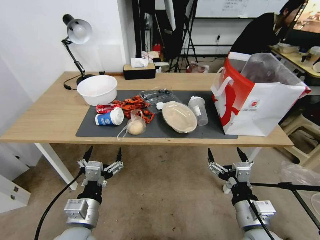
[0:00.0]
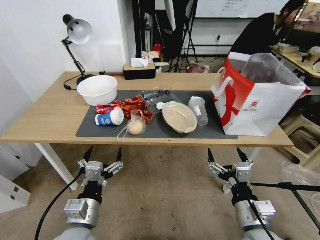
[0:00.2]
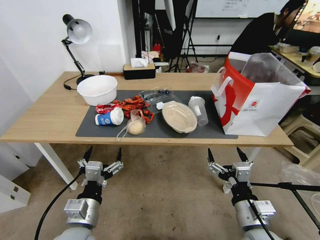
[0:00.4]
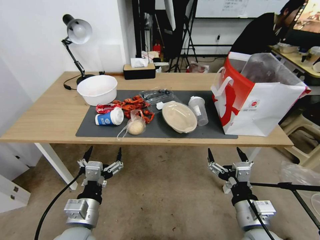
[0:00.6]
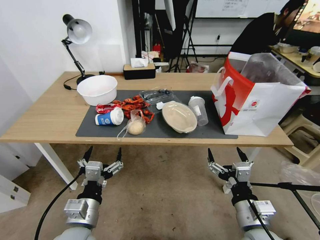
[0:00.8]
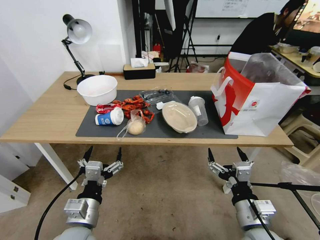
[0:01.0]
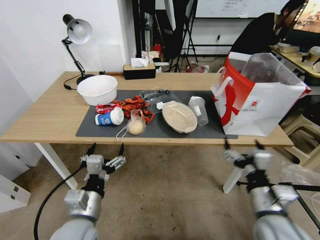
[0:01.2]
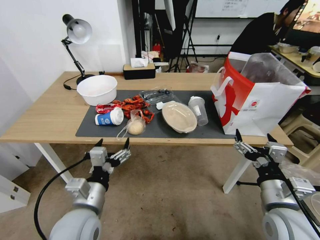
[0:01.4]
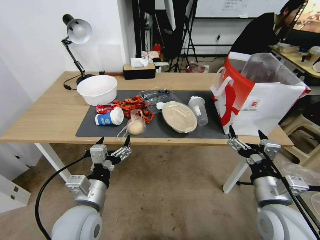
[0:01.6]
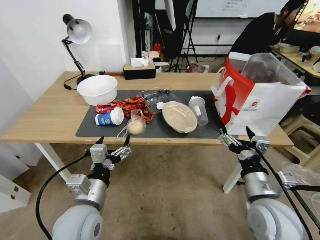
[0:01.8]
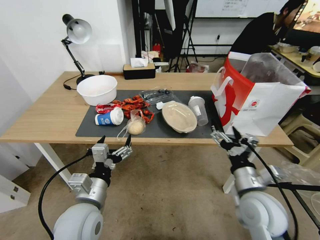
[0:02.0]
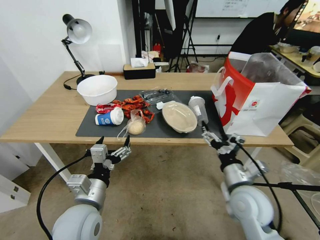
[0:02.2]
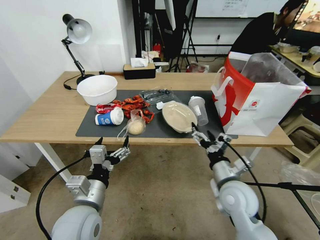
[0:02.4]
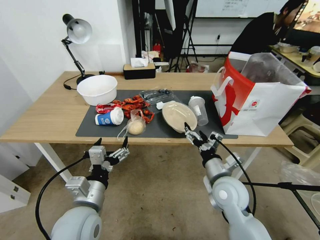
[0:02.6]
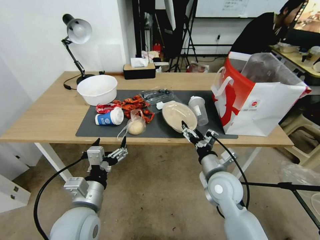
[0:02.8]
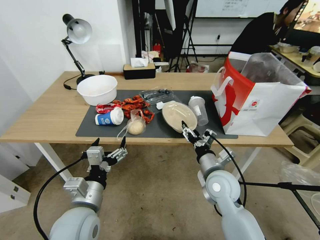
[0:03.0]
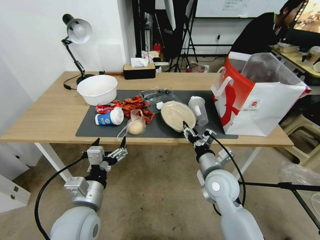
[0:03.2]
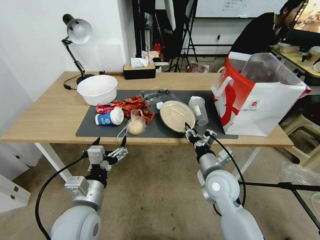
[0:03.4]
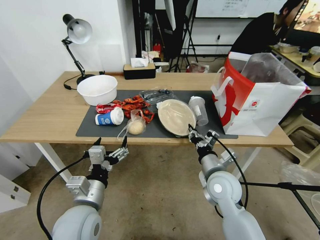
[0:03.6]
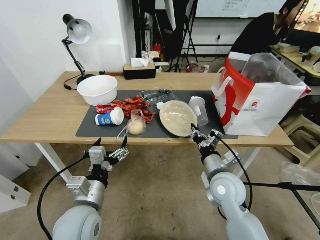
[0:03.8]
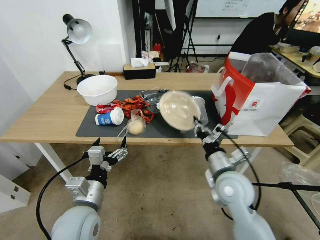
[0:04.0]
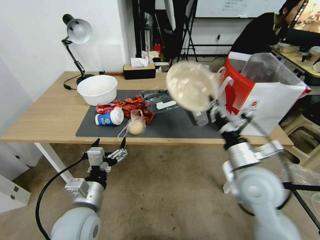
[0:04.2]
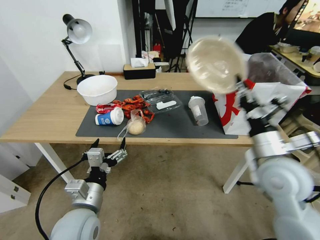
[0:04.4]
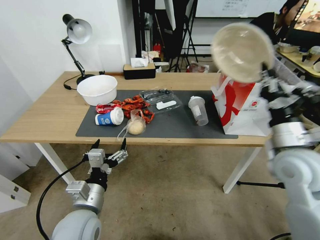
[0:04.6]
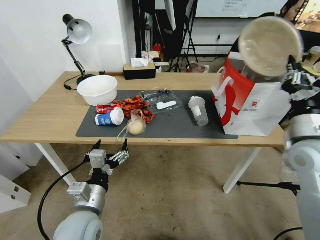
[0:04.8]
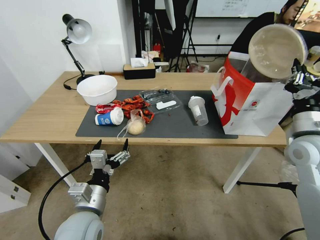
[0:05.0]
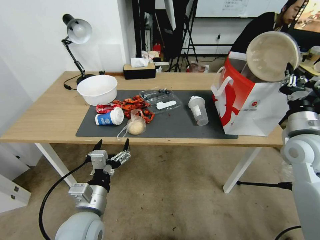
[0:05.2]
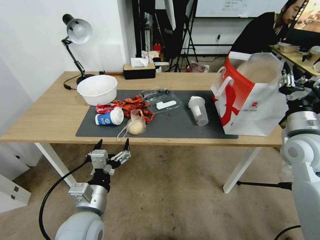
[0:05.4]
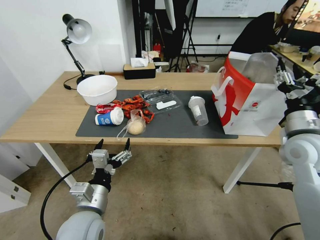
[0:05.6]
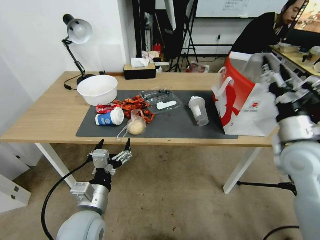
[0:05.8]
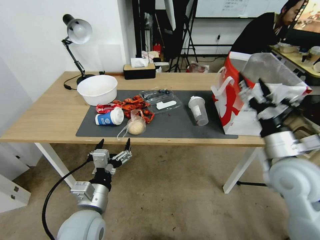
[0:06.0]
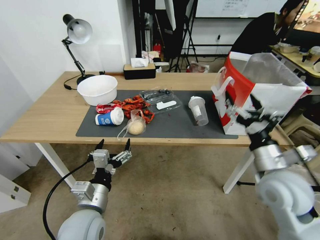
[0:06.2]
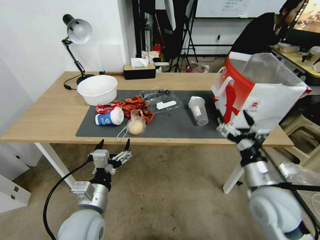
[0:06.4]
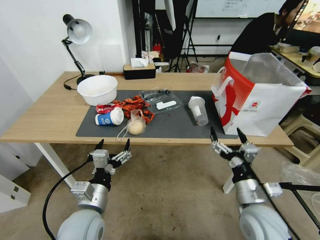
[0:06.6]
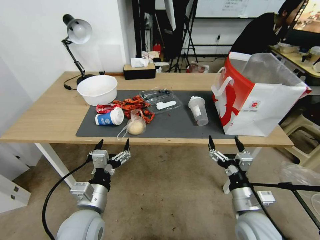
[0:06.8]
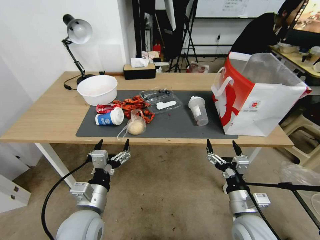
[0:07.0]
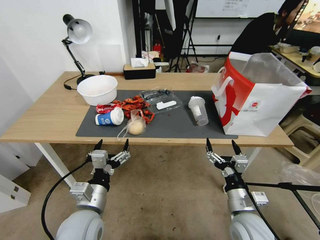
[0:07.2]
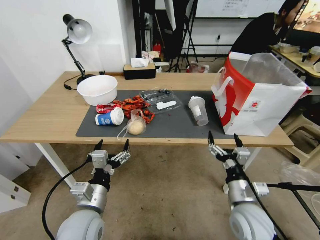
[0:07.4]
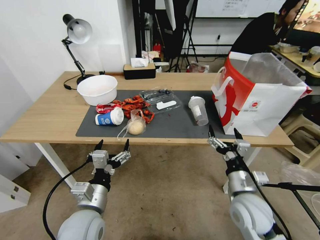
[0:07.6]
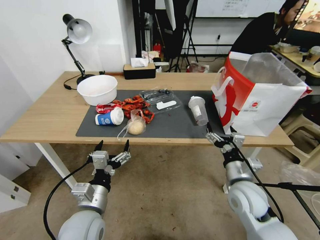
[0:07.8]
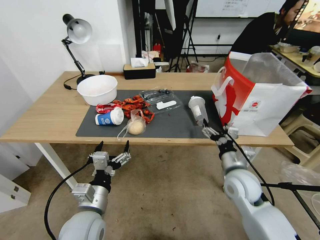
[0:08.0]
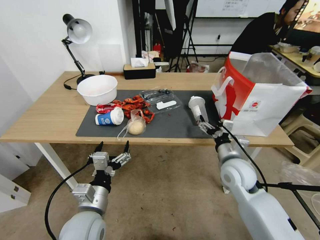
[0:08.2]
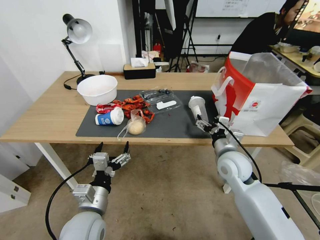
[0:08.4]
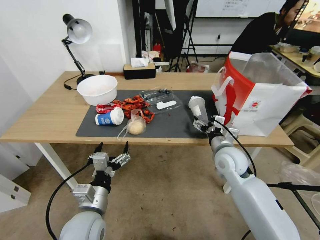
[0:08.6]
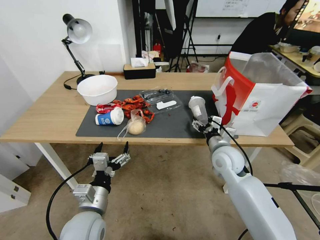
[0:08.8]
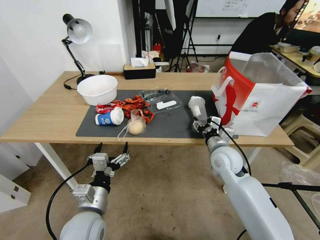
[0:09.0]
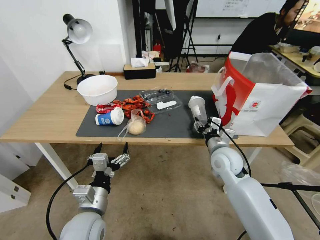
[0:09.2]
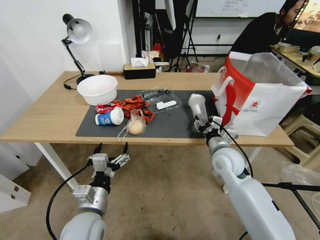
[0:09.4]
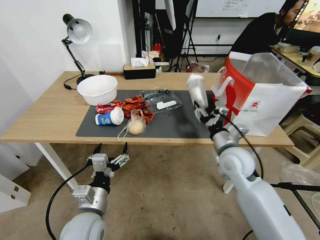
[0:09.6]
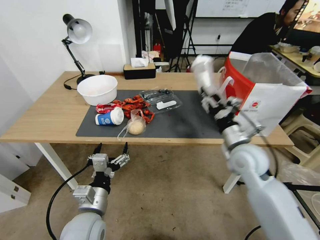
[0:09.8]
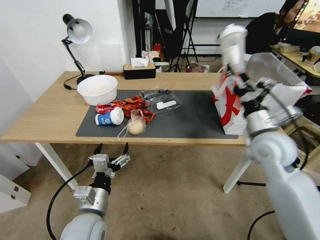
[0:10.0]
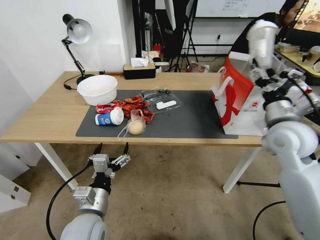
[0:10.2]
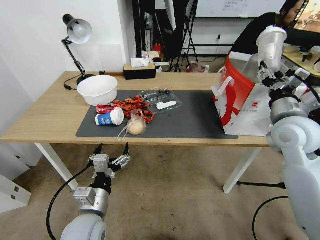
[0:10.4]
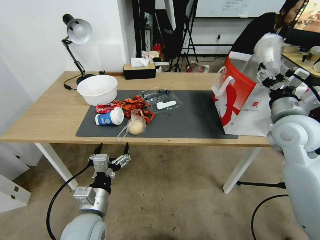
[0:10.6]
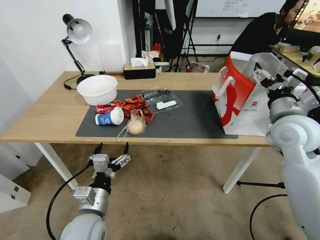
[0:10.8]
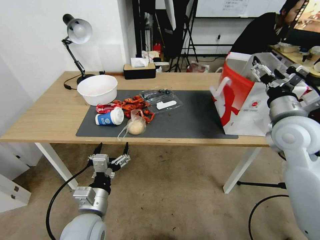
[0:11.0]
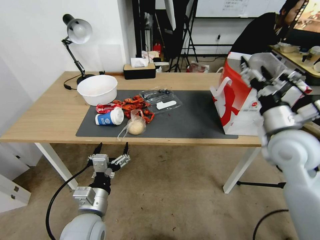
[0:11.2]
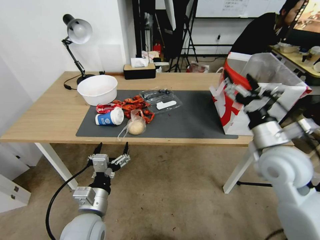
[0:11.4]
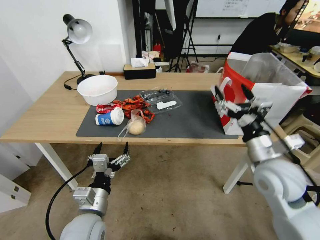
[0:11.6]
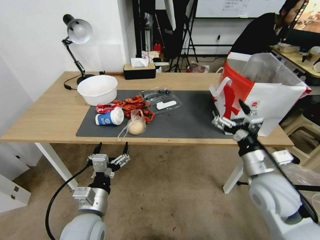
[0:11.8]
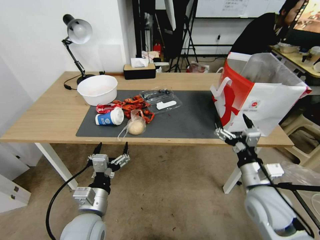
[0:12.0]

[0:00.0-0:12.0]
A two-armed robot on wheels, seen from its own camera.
0:01.6 to 0:03.0: The right gripper is displaced forward, to the left and downward by approximately 15 cm.
0:03.0 to 0:04.4: The right gripper heads upward and to the right, covering approximately 15 cm, and closes its fingers.
0:04.4 to 0:06.0: The right gripper opens.
0:06.0 to 0:07.6: The right gripper shifts approximately 15 cm downward and to the left.
0:07.6 to 0:09.0: The right gripper moves forward, about 15 cm, and closes up.
0:09.0 to 0:10.4: The right gripper moves upward and to the right, approximately 20 cm.
0:10.4 to 0:12.0: The right gripper travels downward, backward and to the left by some 20 cm, and opens up.

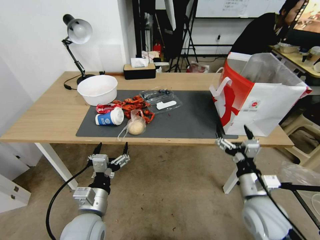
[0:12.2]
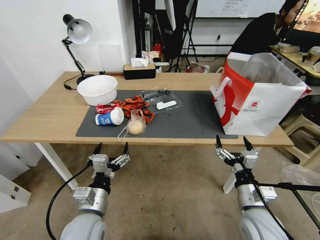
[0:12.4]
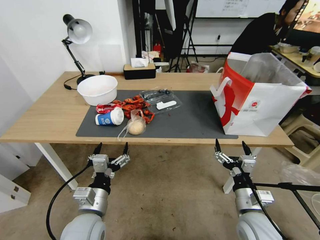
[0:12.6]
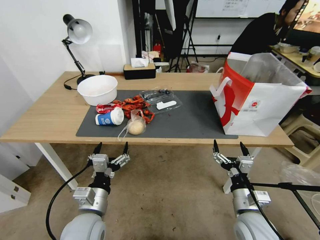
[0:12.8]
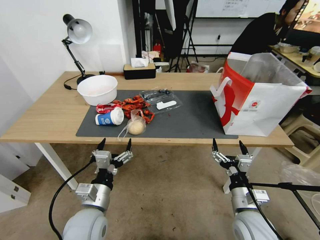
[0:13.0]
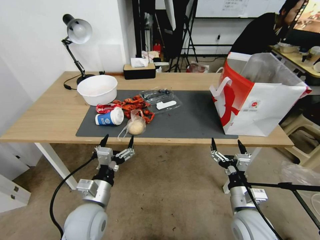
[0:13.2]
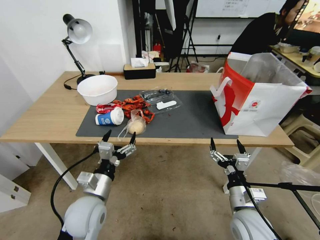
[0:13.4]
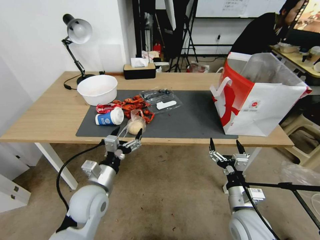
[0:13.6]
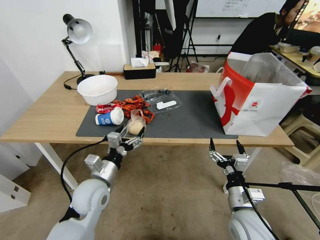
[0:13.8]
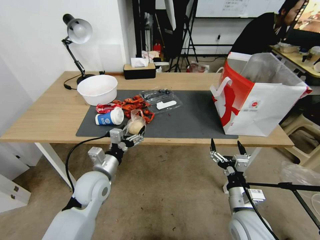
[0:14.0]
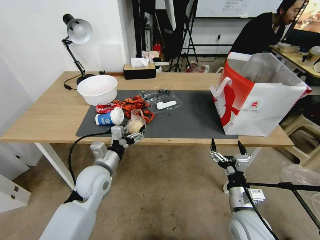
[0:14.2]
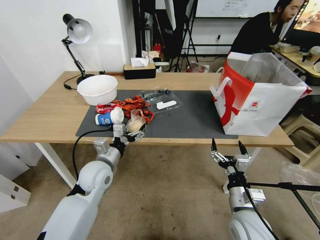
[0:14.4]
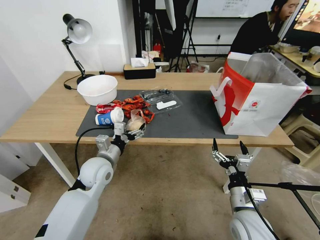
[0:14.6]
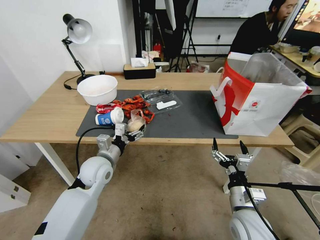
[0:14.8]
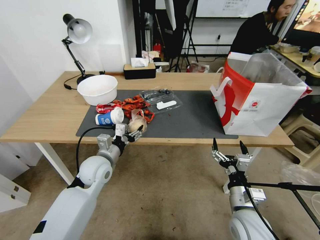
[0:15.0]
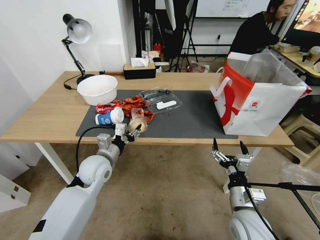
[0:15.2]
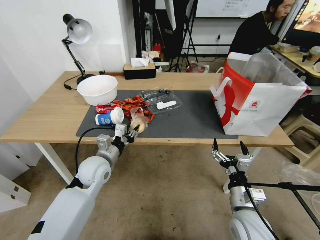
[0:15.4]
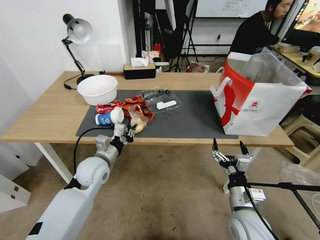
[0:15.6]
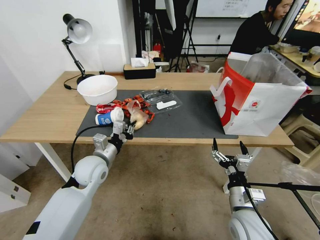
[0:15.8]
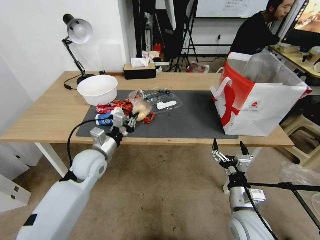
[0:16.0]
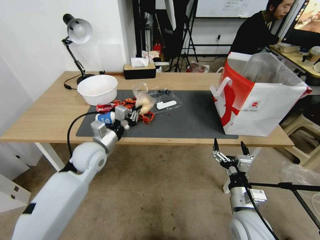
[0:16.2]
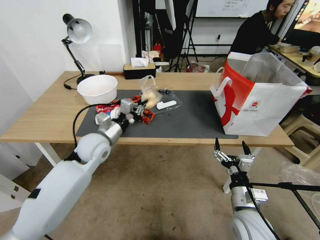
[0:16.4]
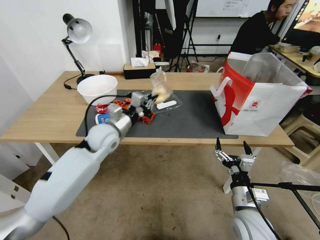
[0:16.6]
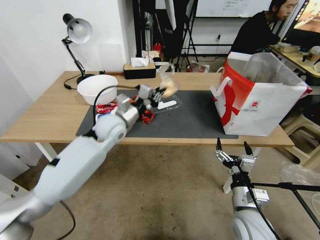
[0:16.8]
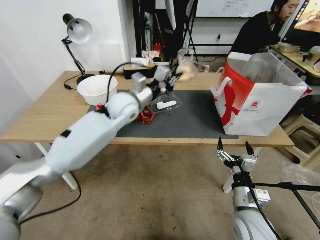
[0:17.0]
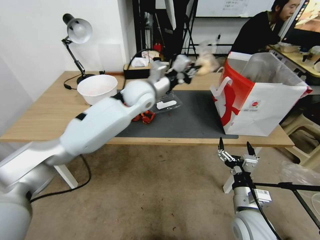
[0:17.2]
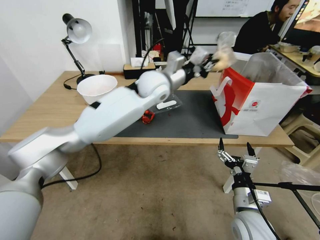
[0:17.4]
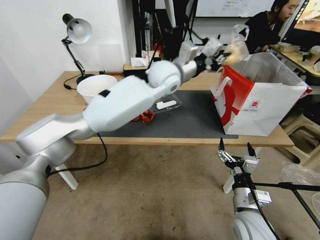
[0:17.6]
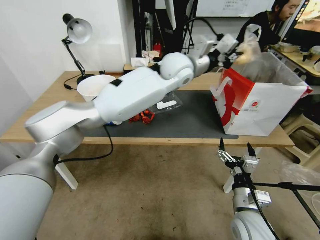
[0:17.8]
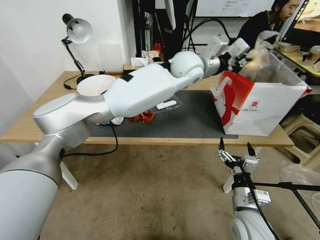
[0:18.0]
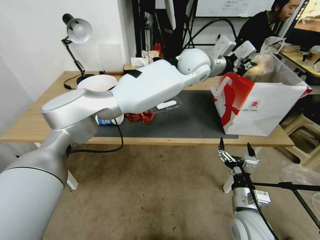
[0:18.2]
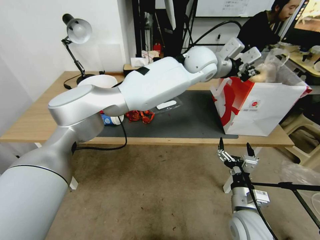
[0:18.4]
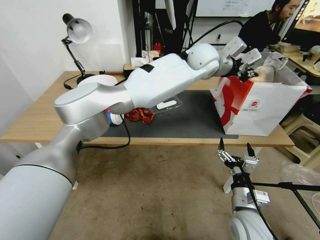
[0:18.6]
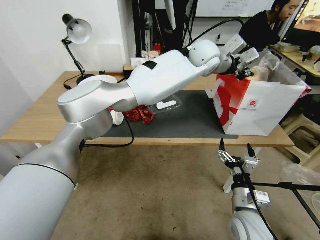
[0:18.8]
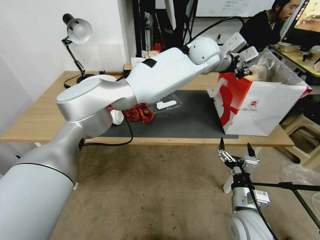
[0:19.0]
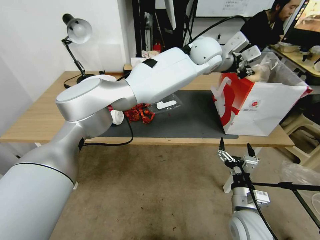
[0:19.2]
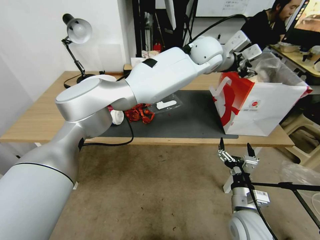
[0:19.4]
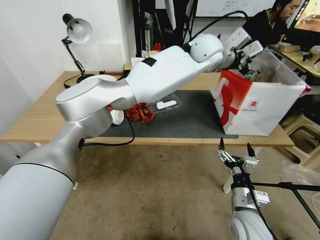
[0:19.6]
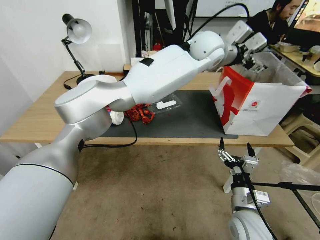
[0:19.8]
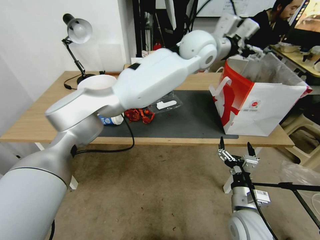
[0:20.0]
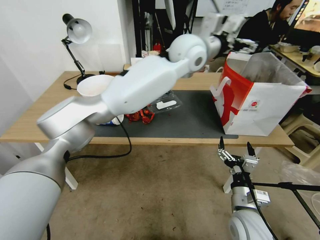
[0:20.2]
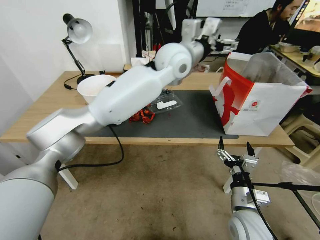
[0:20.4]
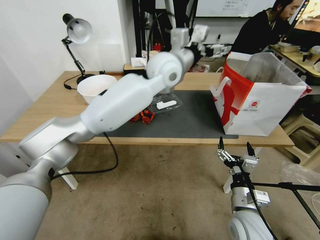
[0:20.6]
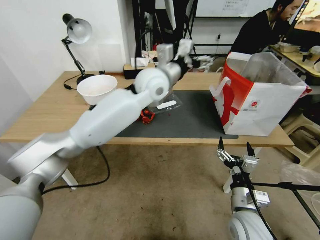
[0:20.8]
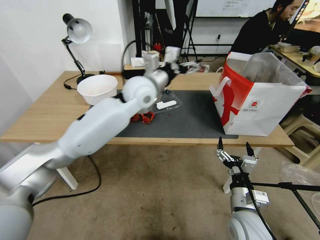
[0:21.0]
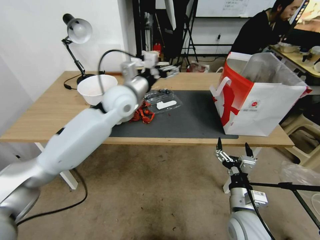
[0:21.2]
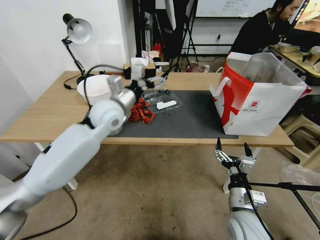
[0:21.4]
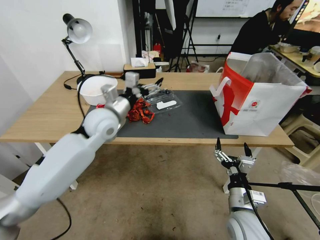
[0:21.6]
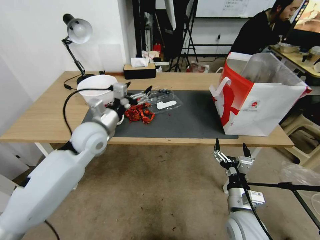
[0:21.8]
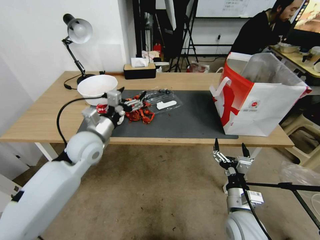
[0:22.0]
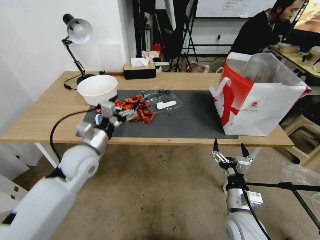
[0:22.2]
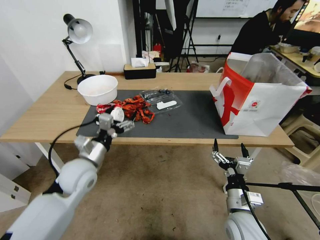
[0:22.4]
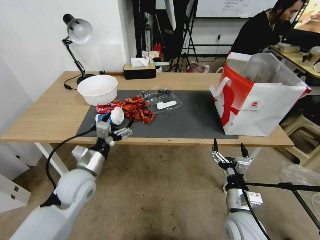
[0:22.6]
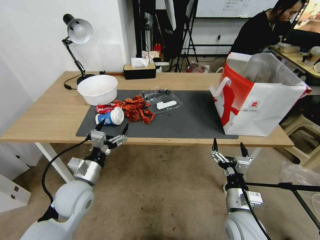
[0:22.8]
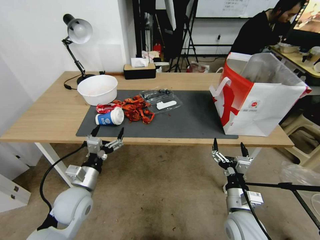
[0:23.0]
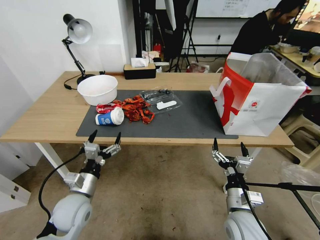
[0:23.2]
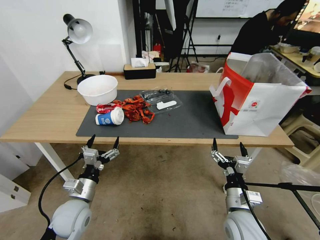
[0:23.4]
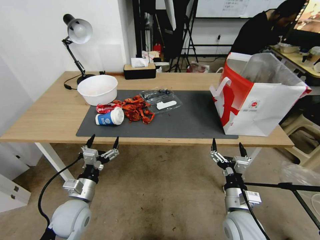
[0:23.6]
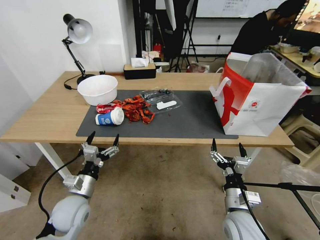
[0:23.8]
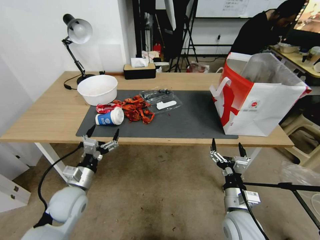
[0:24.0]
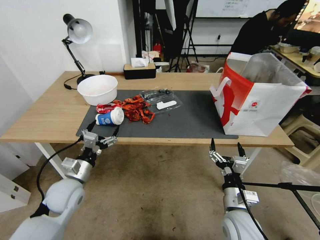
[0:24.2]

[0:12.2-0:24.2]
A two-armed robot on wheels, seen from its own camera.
0:12.2 to 0:13.8: The right gripper shifts by some 5 cm. The left gripper is displaced forward by about 10 cm.
0:13.8 to 0:15.2: The left gripper is displaced forward by some 10 cm, and closes its fingers.
0:15.2 to 0:16.6: The left gripper is displaced forward and upward by some 10 cm, and closes.
0:16.6 to 0:18.2: The left gripper heads to the right, upward and forward, covering some 35 cm.
0:18.2 to 0:19.8: The left gripper ends up about 5 cm from where it was, and opens.
0:19.8 to 0:21.2: The left gripper heads to the left and downward, covering some 25 cm.
0:21.2 to 0:22.6: The left gripper heads backward, downward and to the left, covering some 30 cm.
